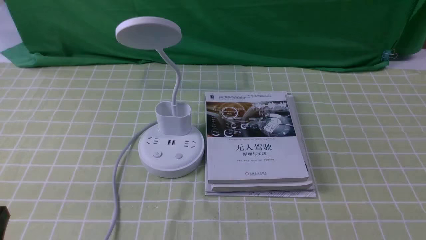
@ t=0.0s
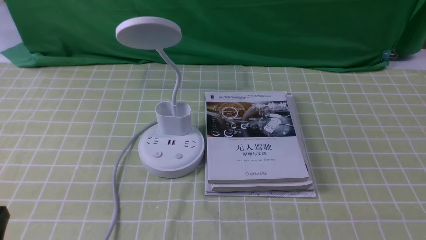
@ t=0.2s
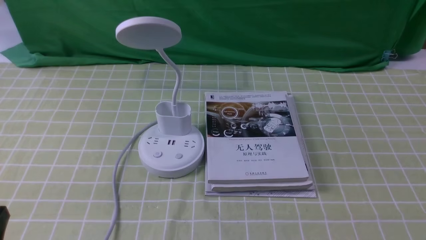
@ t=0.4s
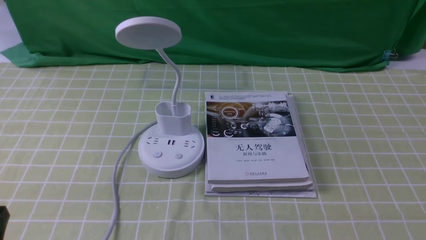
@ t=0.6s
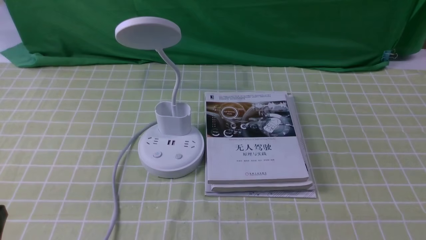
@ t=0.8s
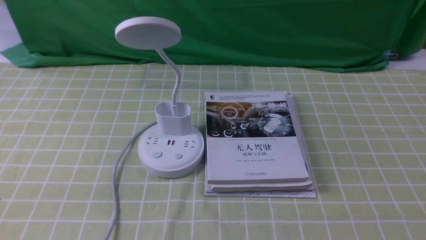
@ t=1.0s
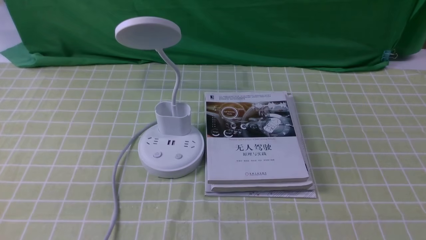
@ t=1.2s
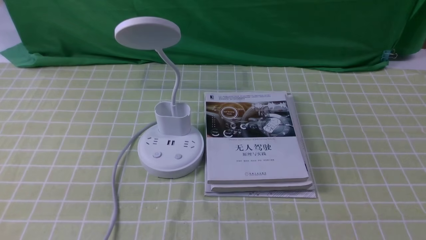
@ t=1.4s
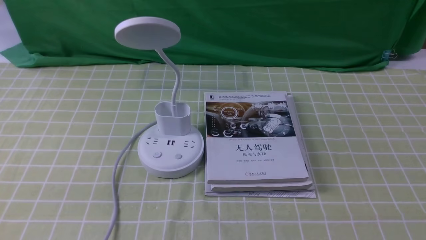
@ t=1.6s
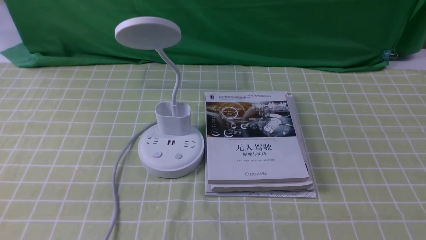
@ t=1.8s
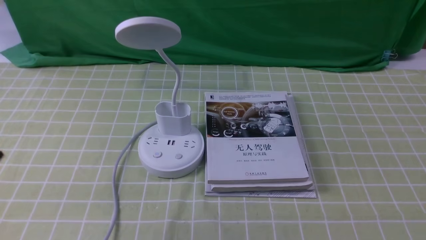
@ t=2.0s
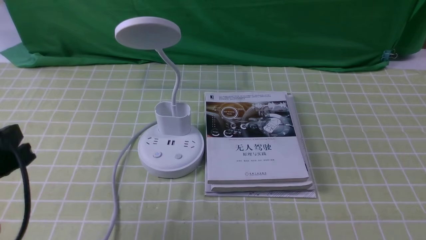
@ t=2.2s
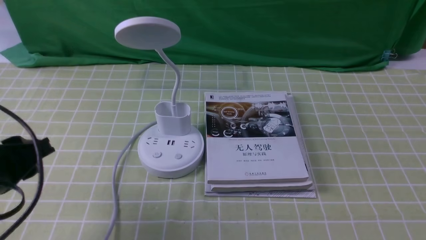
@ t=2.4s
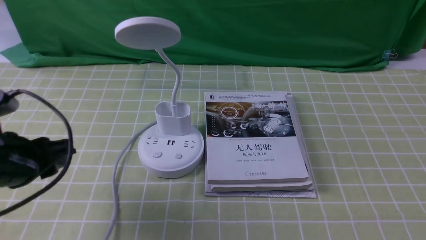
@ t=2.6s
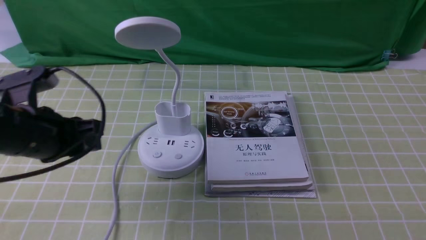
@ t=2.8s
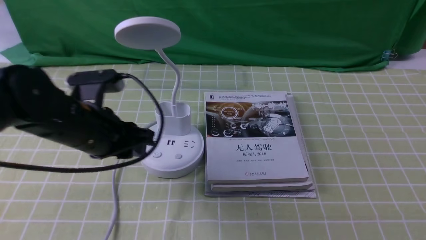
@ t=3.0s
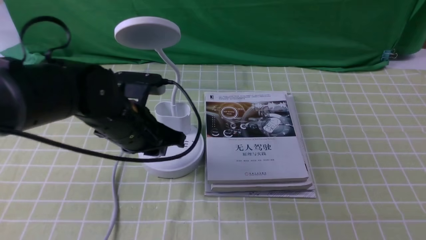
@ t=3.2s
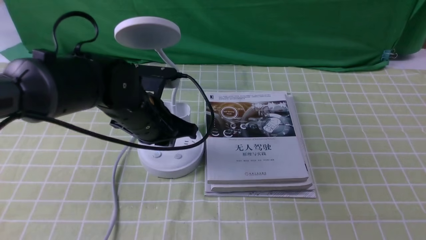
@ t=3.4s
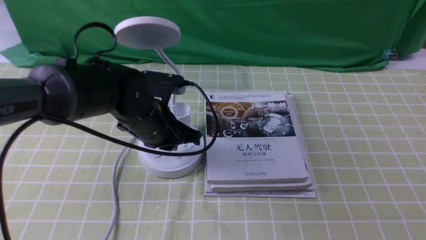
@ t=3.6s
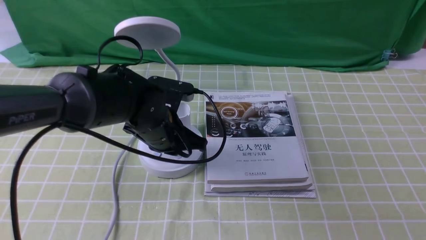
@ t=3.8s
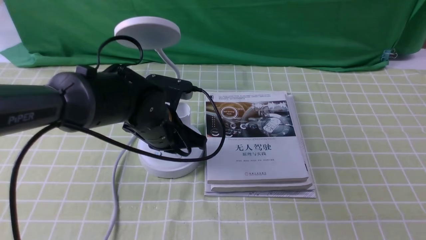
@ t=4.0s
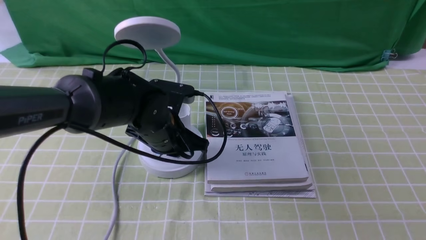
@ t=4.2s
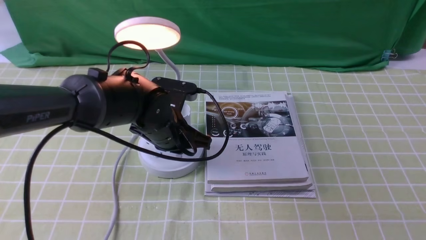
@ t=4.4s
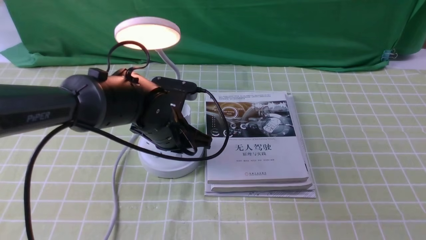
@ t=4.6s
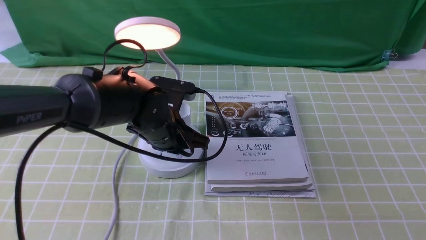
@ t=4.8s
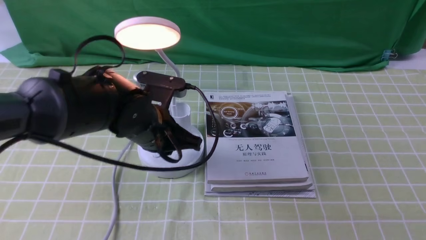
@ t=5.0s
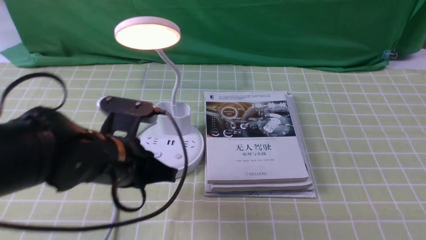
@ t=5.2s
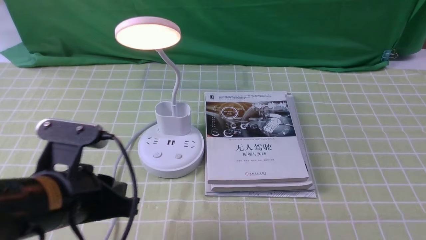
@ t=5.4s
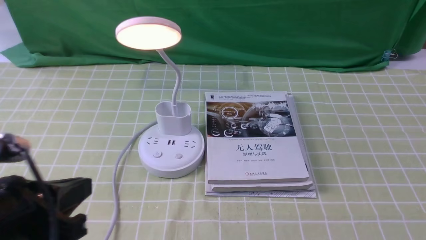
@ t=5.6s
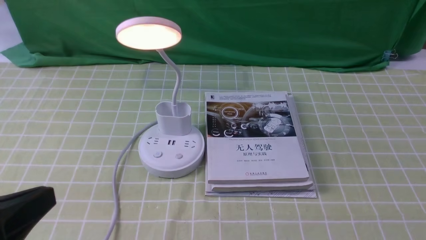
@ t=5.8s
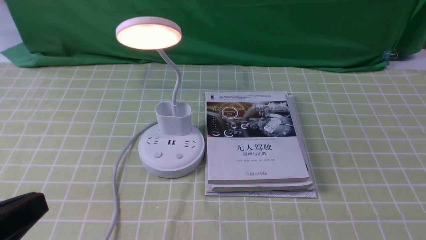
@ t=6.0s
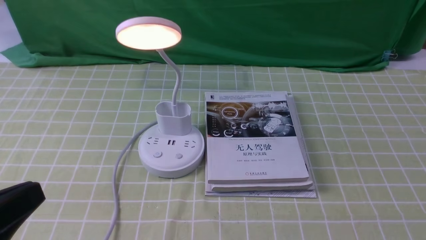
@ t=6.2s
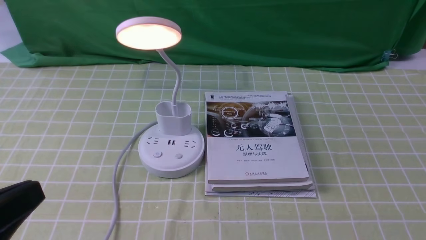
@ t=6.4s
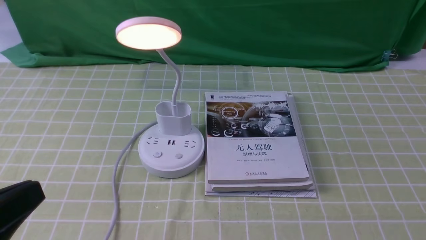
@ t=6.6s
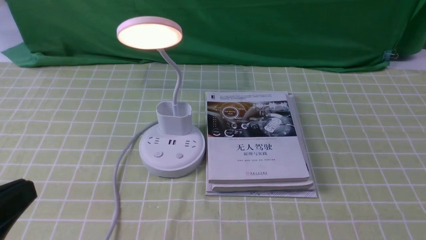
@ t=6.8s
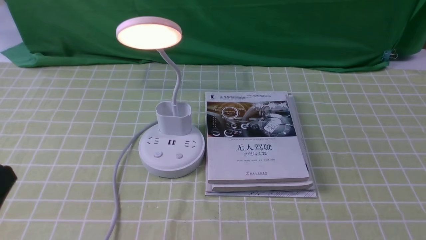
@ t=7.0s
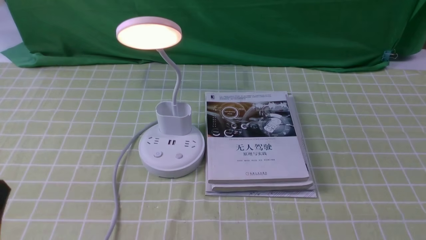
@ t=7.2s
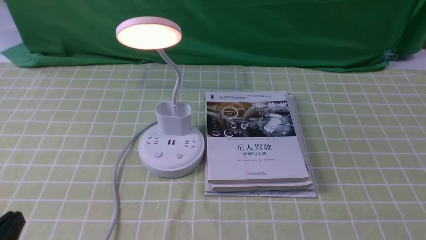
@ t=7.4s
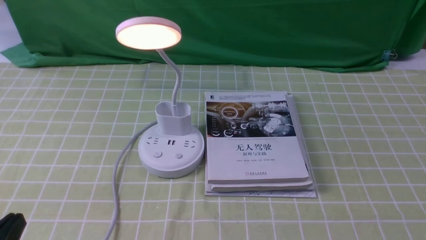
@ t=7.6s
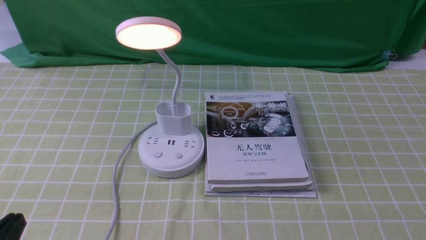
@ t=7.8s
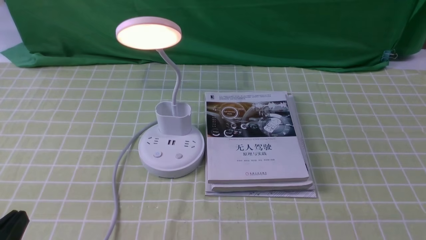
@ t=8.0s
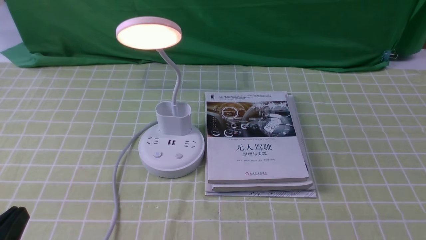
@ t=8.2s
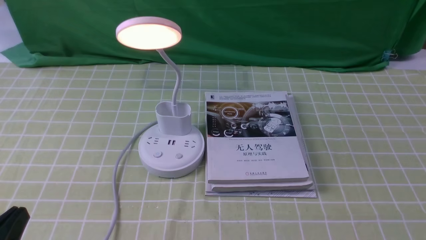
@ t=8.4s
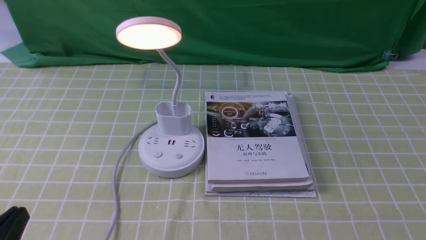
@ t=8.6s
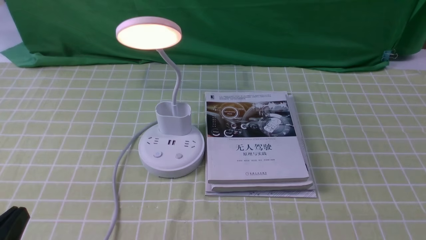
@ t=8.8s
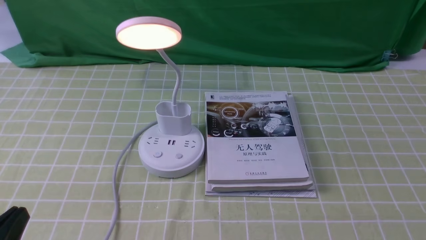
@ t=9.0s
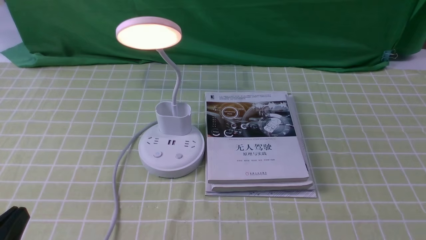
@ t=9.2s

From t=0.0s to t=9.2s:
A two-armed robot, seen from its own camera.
Step, from t=0.0s to t=5.0s: use the left arm to press the button switch on the lamp holder.
From t=1.6s to t=3.0s: The left gripper shifts approximately 20 cm forward.
From t=3.0s to t=4.6s: The left gripper shifts approximately 15 cm to the right, forward and downward, and closes up.
From t=4.6s to t=6.2s: The left gripper moves backward, to the left and upward, approximately 35 cm.
From t=6.2s to t=7.6s: The left gripper heads downward, covering approximately 10 cm.
From t=7.6s to t=9.2s: The two grippers keep their place.
